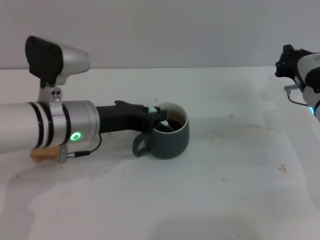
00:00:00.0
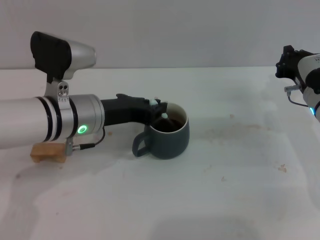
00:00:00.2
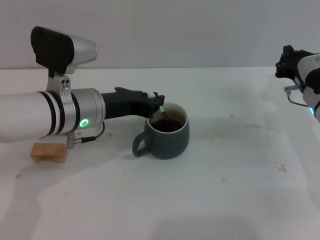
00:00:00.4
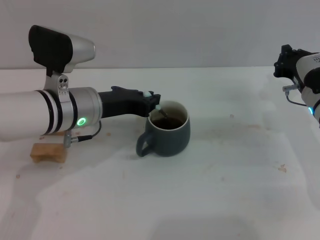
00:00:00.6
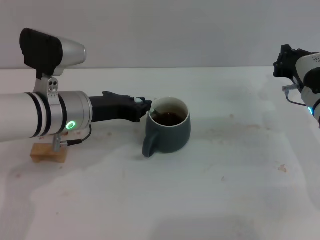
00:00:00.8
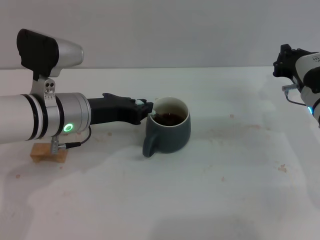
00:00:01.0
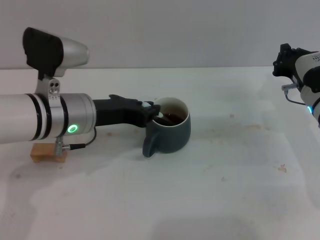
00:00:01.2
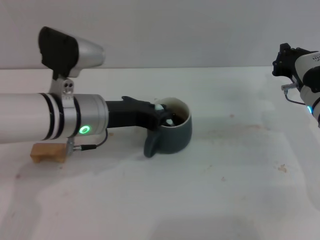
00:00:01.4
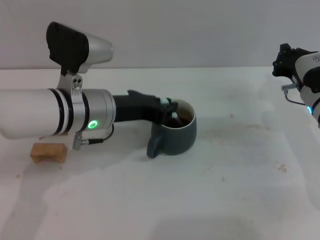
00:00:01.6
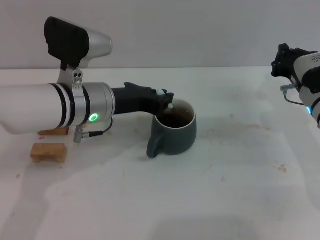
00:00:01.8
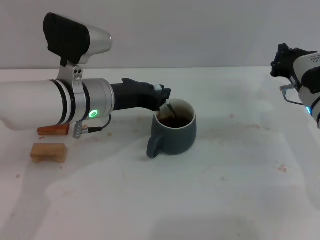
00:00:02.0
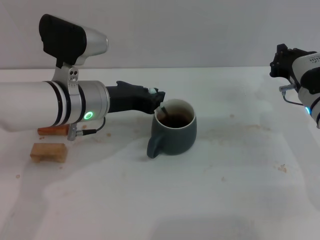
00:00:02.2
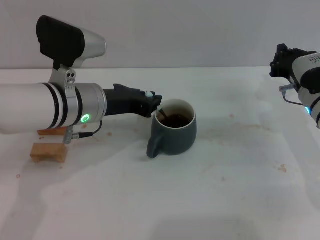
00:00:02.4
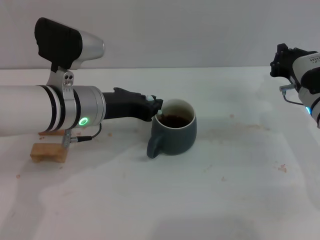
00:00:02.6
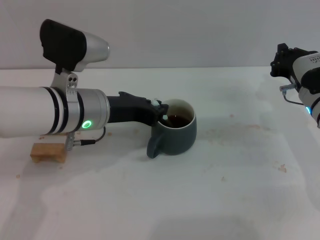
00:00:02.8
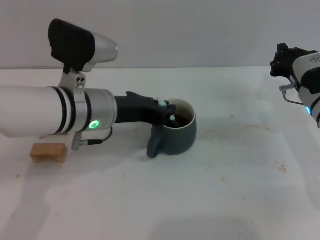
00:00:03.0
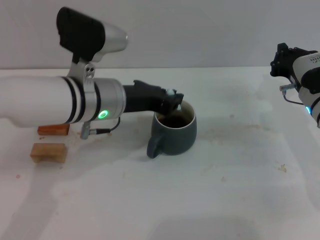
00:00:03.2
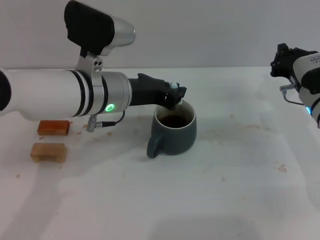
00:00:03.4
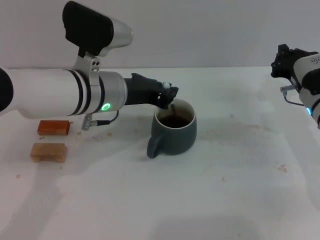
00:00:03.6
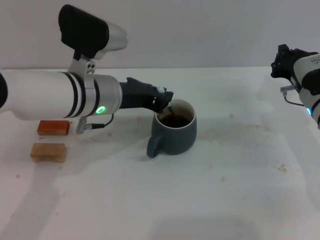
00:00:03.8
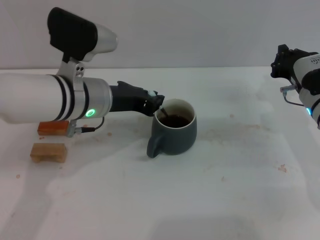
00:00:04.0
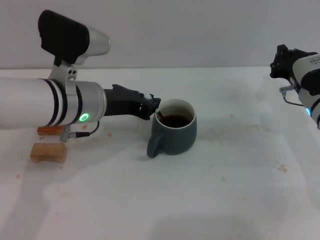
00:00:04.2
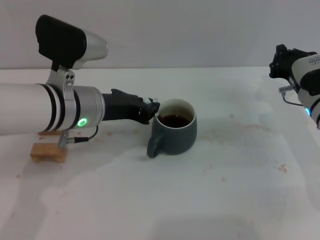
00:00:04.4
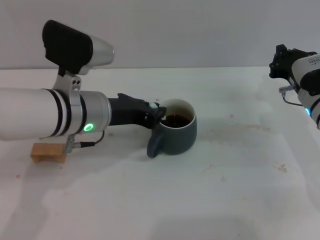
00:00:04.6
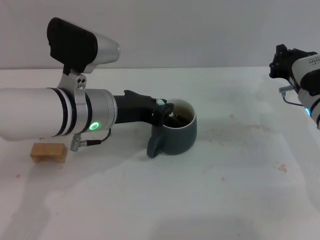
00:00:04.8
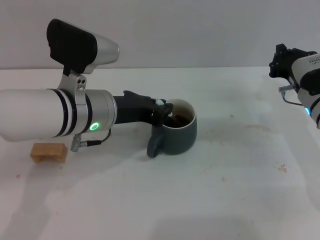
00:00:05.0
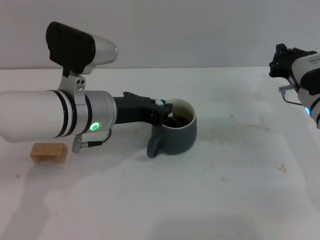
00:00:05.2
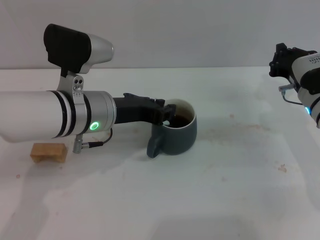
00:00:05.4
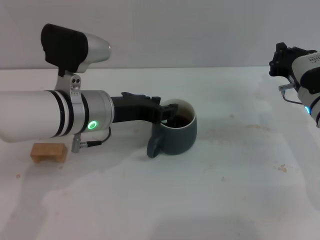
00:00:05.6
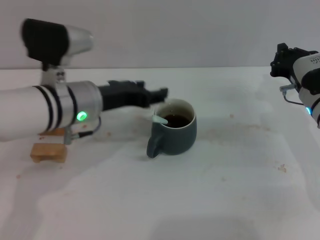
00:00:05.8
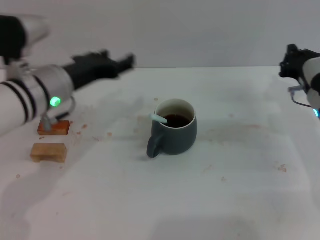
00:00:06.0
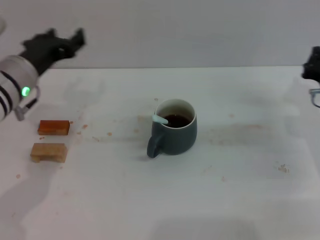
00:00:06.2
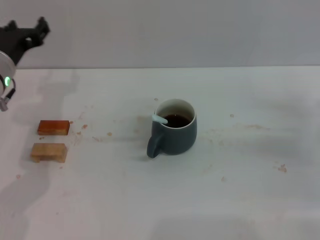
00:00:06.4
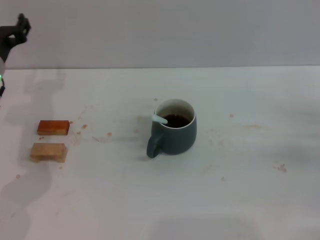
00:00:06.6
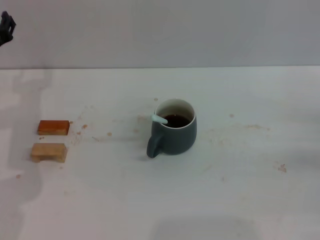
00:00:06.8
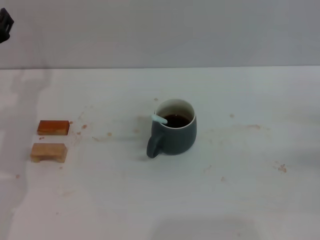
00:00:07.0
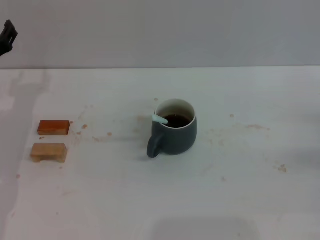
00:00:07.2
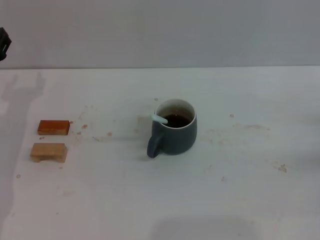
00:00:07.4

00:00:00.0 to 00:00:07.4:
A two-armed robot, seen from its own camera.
Task of the whole recording: Move the grey cup to the center, lift the blue spoon, stir it three times in the cup, and put the spoon into the cup.
Step, 00:00:00.0 to 00:00:05.6: Stir the coffee in the cup with the left gripper.
00:00:00.0 to 00:00:04.4: There are only small adjustments of the grippers.
00:00:04.4 to 00:00:06.0: The left gripper opens.
00:00:06.0 to 00:00:07.4: The left gripper goes some 15 cm to the left and downward, while the right gripper is displaced to the right and backward by some 15 cm.
